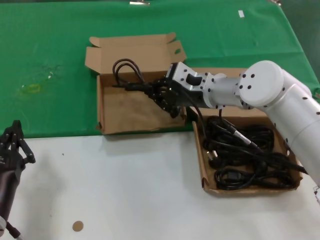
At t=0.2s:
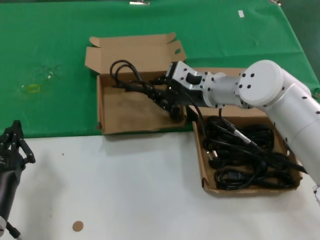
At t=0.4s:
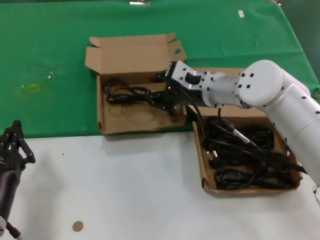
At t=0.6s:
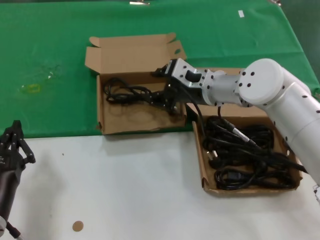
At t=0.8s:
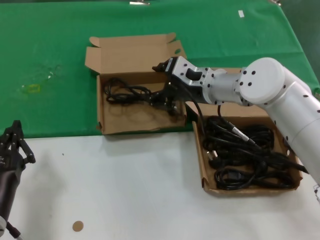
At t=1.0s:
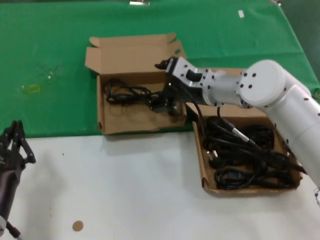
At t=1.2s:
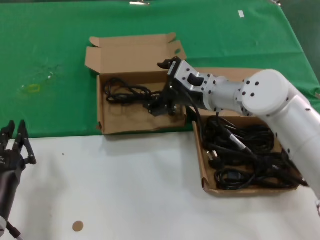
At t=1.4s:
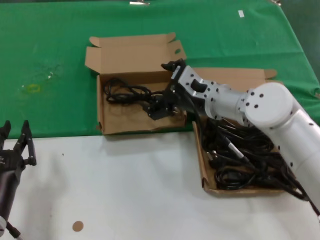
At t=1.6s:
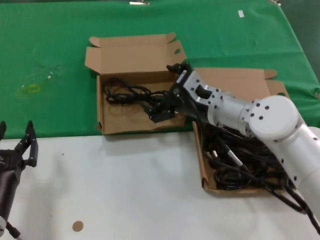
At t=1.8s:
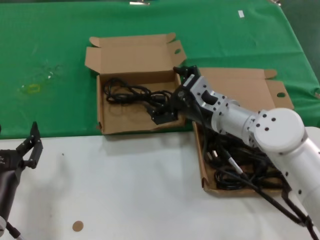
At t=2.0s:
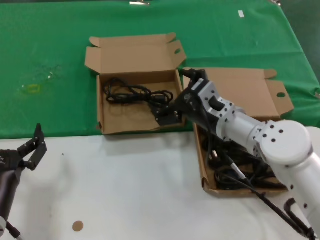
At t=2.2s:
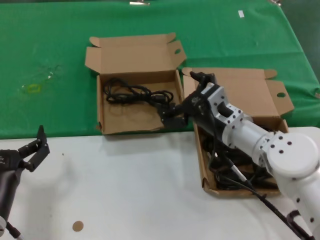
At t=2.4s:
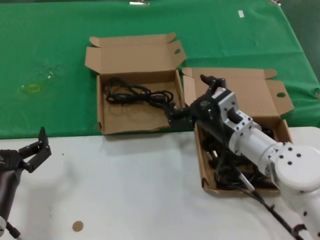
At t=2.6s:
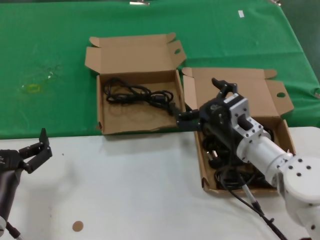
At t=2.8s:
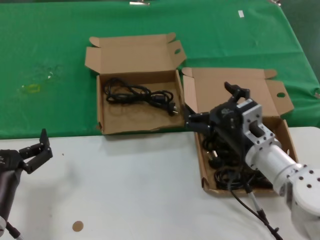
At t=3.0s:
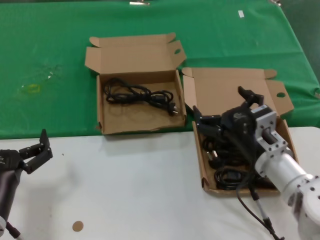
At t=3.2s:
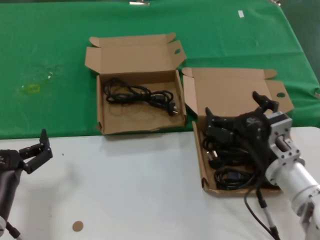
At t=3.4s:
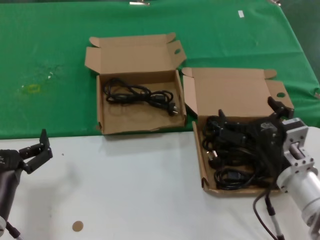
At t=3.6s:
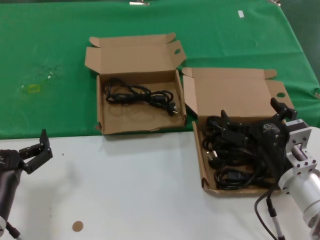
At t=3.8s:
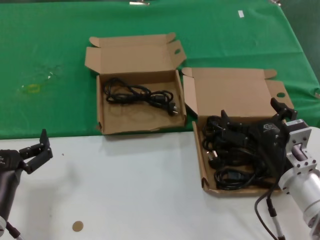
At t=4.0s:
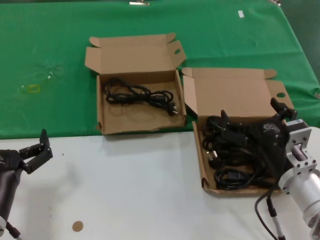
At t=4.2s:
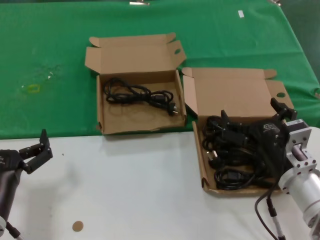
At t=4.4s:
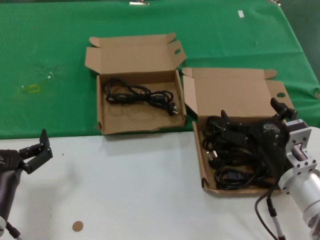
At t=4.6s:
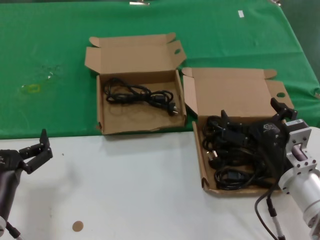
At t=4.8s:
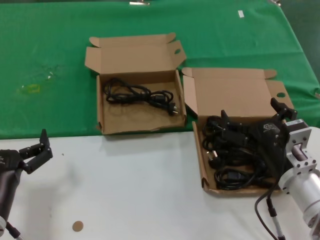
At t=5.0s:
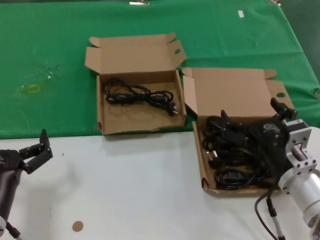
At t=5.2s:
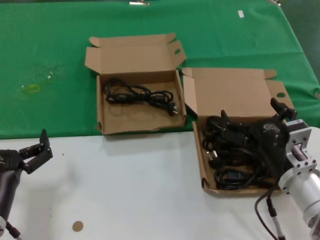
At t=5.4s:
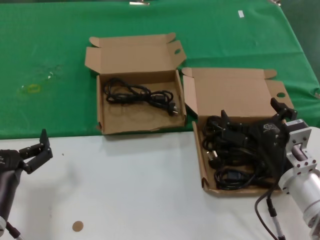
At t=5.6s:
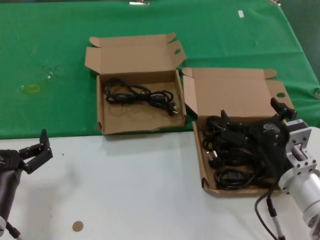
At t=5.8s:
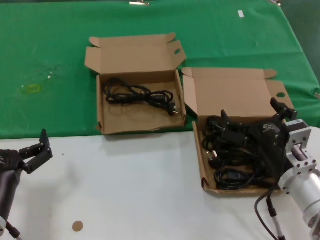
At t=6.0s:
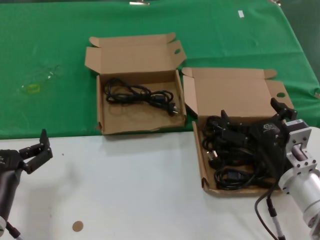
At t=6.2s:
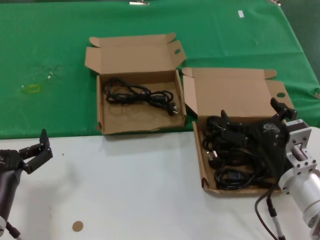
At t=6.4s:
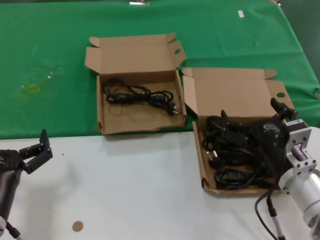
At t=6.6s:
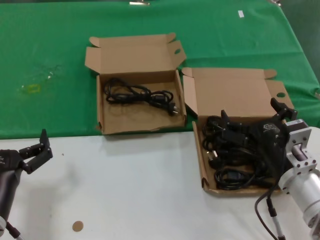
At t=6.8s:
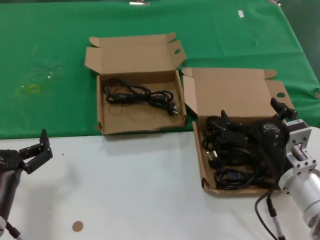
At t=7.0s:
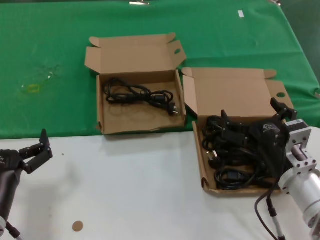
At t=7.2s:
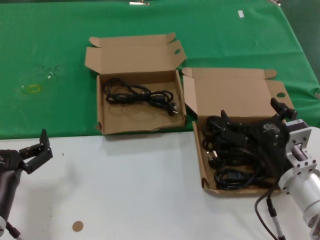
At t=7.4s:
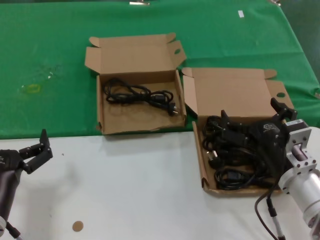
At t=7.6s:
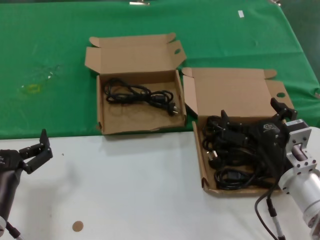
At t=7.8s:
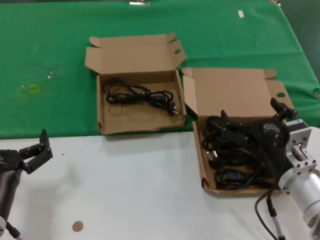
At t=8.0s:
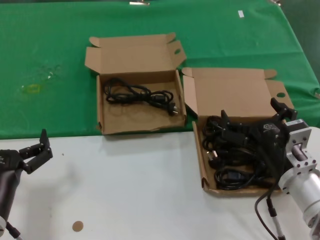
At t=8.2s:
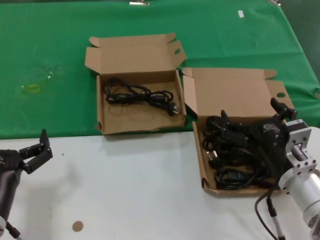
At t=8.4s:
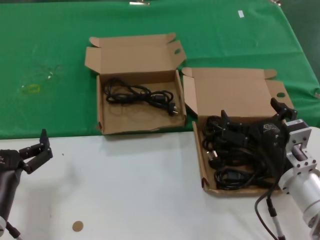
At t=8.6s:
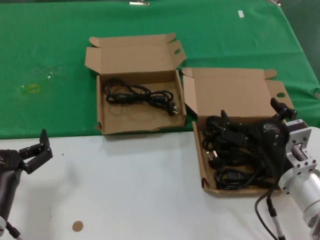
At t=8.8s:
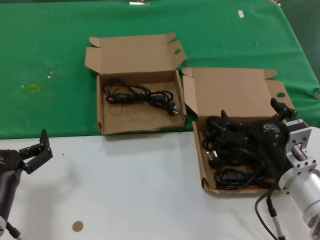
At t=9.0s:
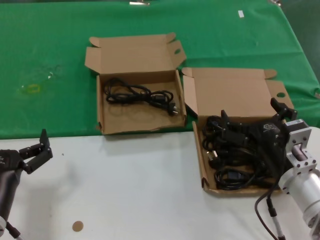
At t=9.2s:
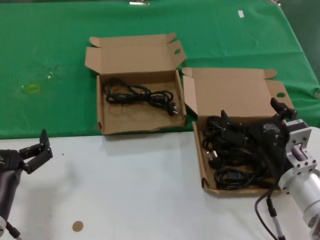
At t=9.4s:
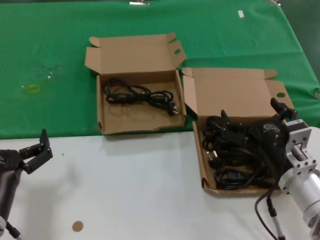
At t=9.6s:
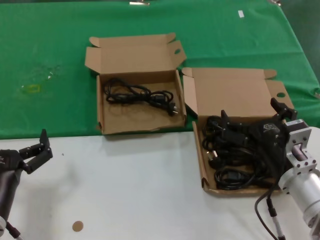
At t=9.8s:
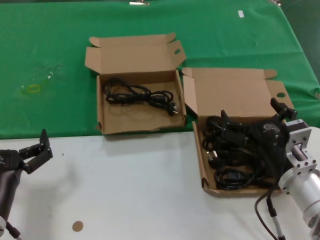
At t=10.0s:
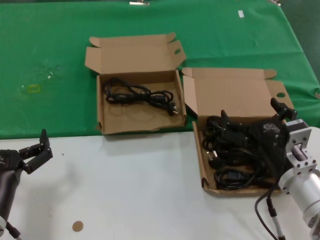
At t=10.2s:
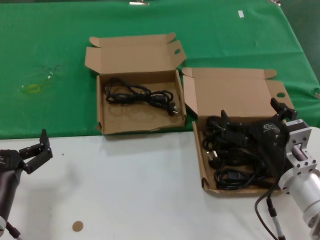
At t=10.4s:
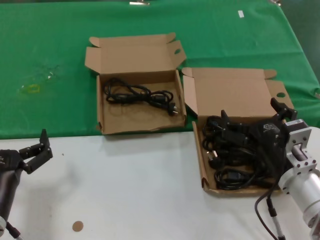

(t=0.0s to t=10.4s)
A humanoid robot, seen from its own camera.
Task of the whole recording: take the parts from the box containing them and put them into an empty box.
t=0.0s - t=1.4s: The hands stay close to where they were, moving slightly.
t=1.4s - t=3.0s: The right hand shifts some 15 cm backward, downward and to the right.
t=3.0s - t=4.4s: The right hand moves approximately 5 cm.
t=4.4s - t=10.4s: Both hands stay put.

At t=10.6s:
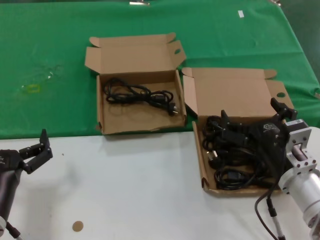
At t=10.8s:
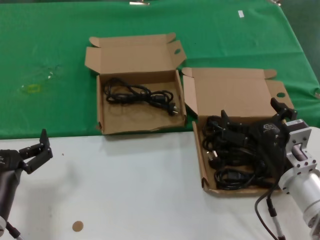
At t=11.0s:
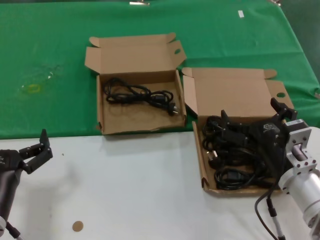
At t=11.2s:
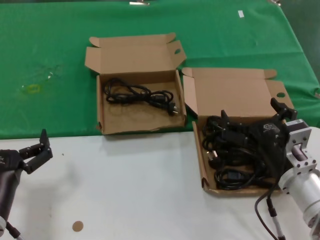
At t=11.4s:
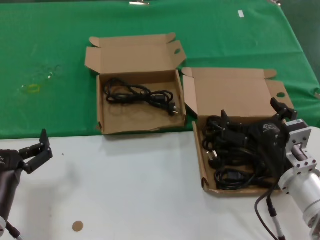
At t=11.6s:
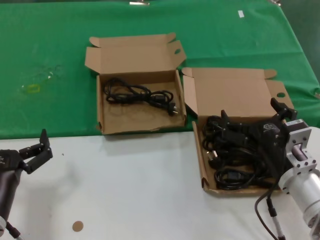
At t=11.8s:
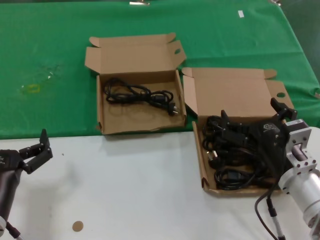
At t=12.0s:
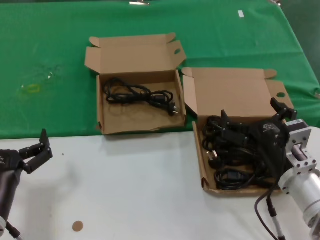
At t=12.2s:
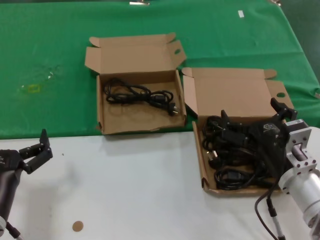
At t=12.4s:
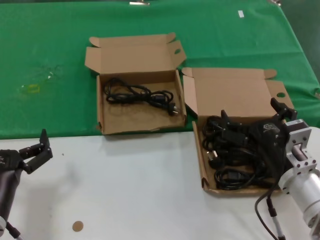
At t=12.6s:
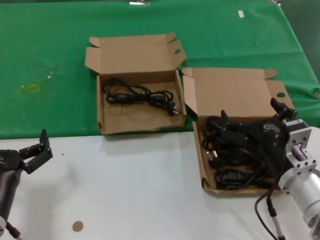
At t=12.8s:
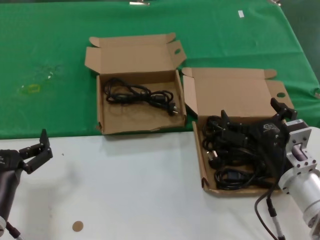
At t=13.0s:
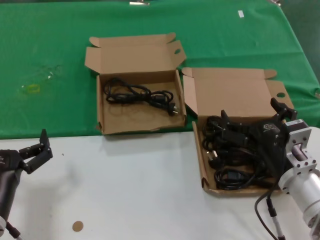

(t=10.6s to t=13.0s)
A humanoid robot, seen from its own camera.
Task of the whole recording: take the parts from the box containing them and put them into an empty box.
t=10.6s - t=13.0s: The two hands keep their place.
